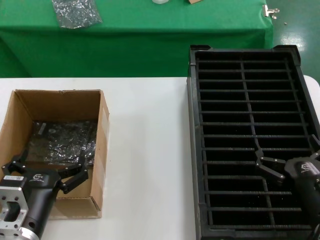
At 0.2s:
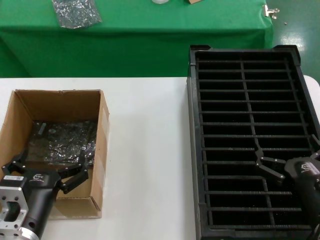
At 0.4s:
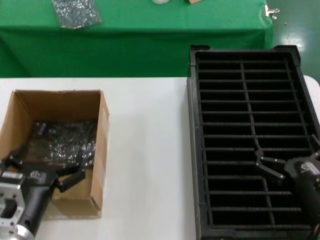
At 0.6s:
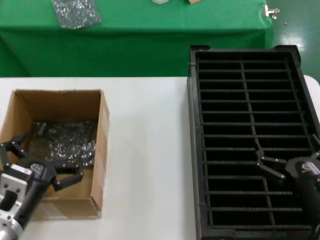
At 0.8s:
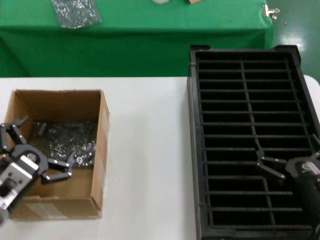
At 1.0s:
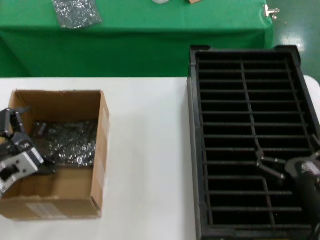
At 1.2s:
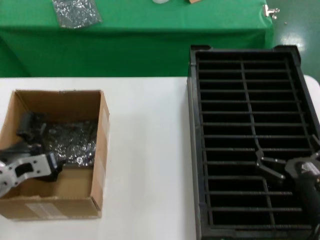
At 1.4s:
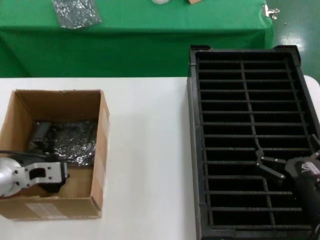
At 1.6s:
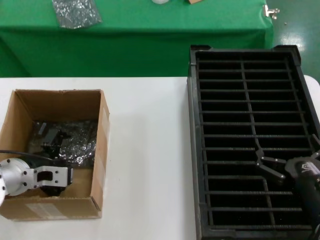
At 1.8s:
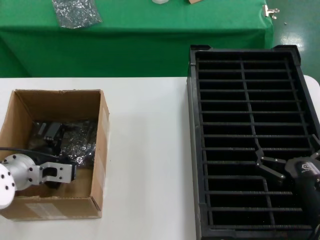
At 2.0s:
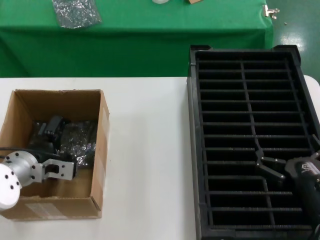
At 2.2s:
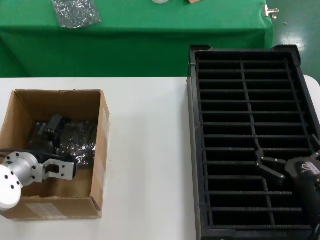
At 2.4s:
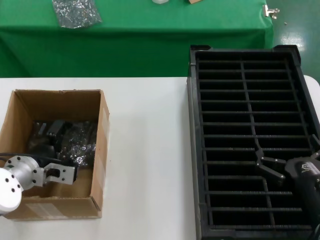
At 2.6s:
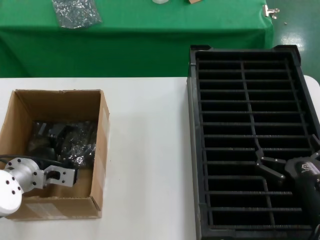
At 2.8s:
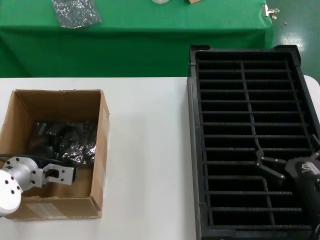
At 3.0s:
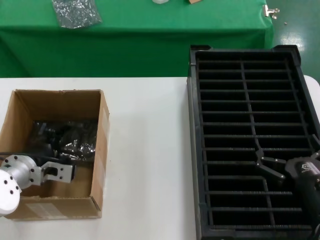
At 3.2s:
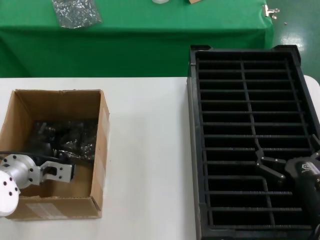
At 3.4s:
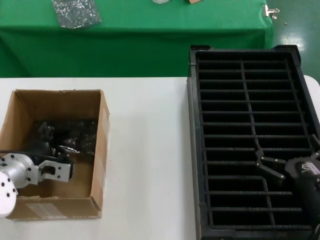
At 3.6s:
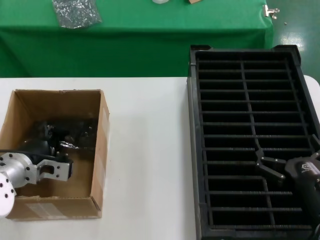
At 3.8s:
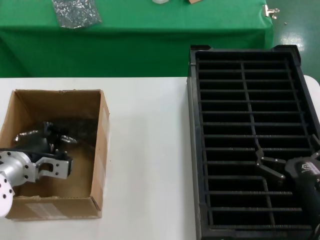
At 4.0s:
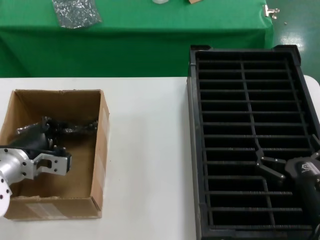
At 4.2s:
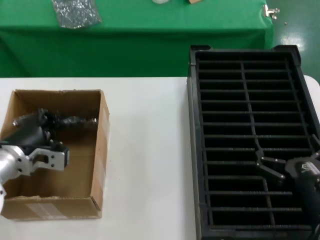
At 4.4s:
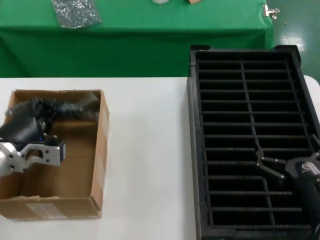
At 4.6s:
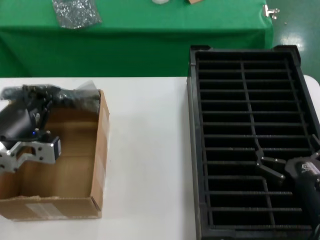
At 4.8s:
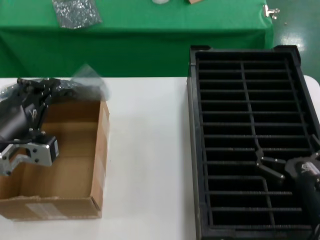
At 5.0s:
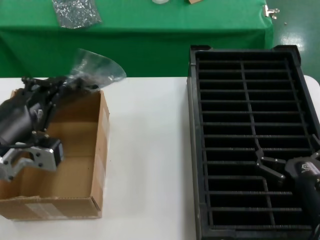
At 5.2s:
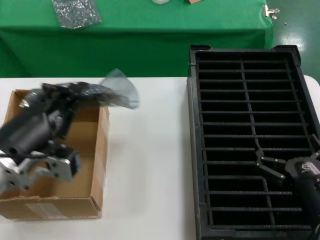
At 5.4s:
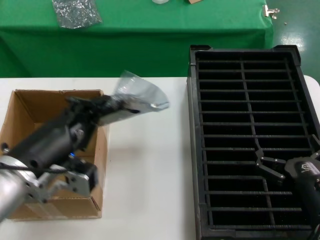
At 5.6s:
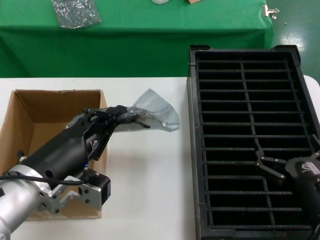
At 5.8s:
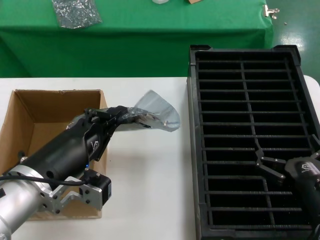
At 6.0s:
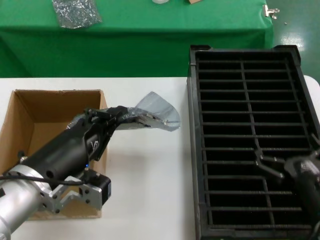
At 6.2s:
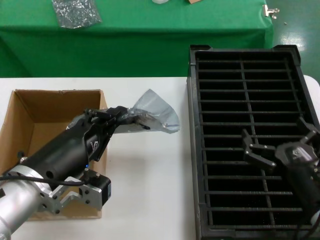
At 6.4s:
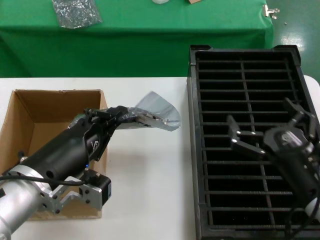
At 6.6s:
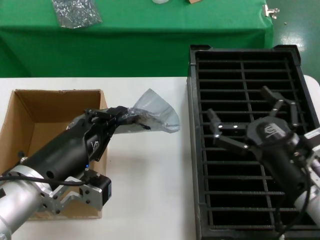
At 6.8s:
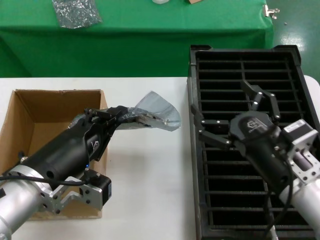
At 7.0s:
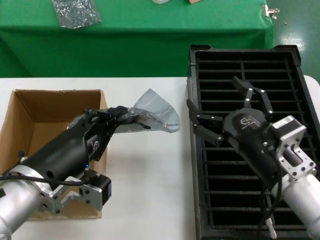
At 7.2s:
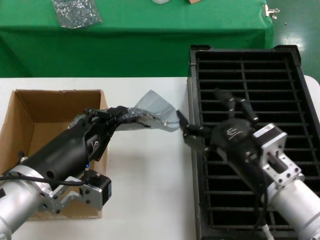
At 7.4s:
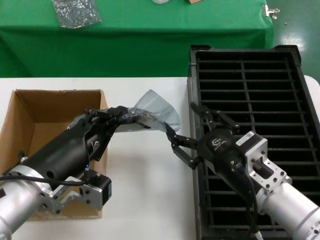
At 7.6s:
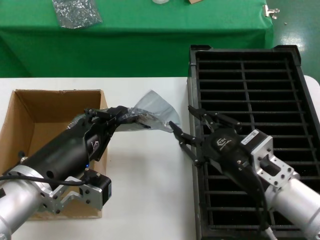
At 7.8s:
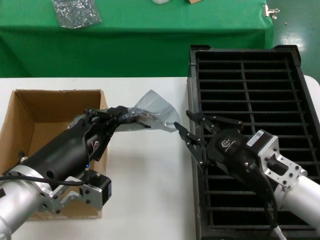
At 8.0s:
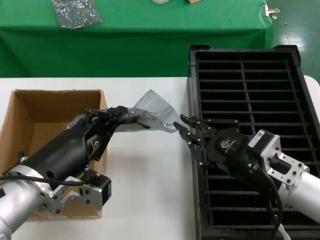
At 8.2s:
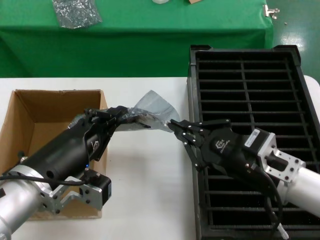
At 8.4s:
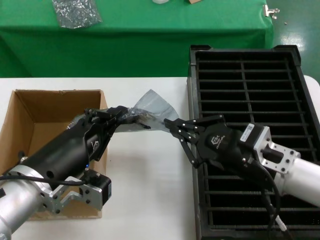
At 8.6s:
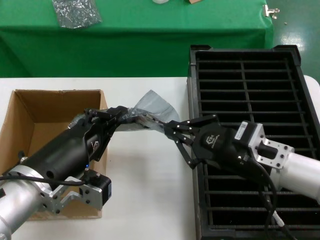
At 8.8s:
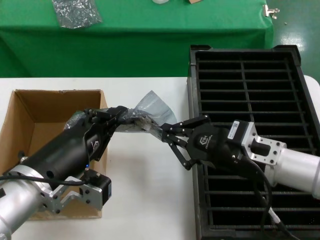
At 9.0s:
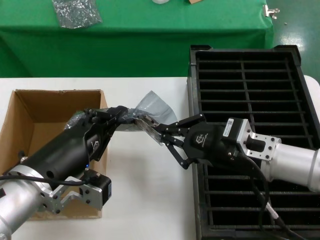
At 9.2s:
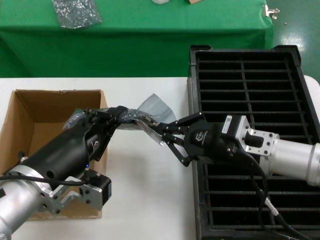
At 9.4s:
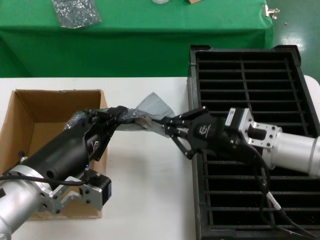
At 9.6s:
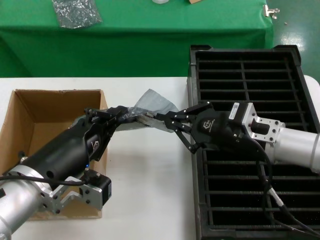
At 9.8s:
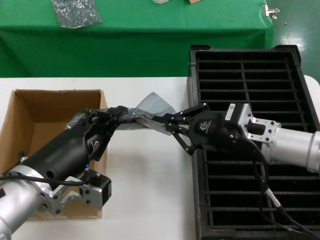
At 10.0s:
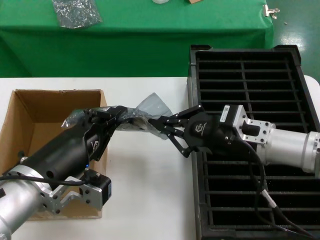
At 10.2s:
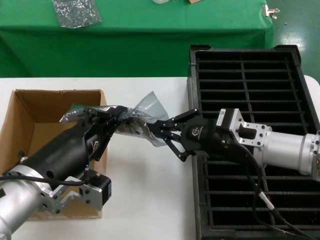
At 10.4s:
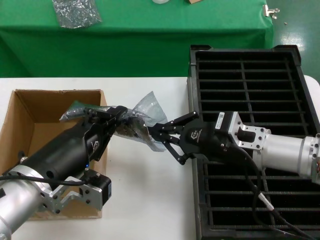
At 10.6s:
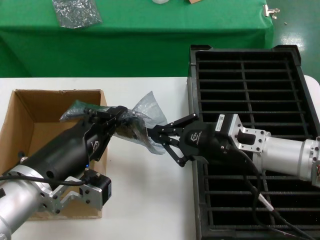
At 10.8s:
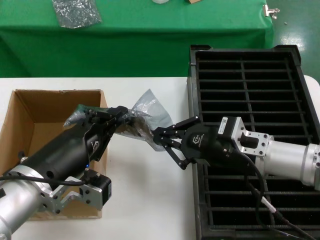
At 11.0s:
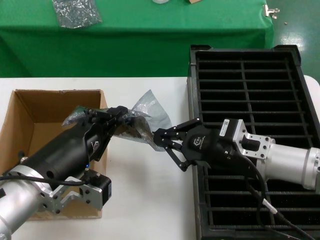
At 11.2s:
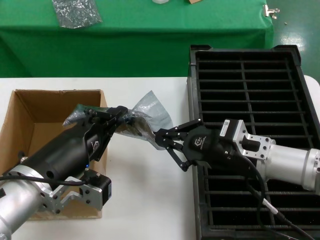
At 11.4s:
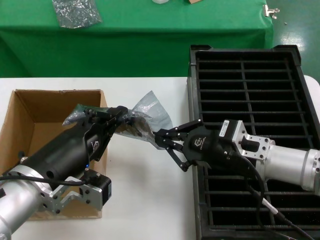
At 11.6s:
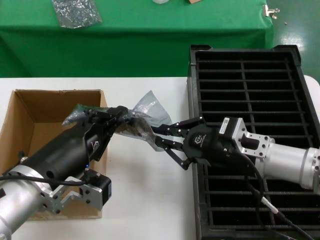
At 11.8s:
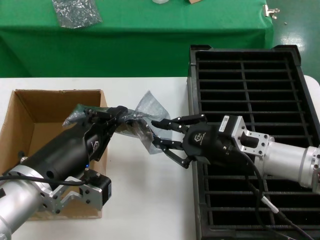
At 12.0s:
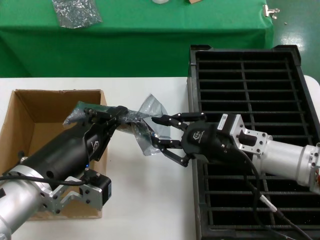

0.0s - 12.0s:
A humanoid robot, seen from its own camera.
Task of the whole recording: take out graphics card from box remove packaging put into black container.
Step, 0.0s - 3.8s: Grasp the bag.
Step, 4.0s - 5.6s: Lift the bag.
0.0s - 1.6s: The left hand moves forward and to the left, roughly 15 cm.
1.6s - 3.0s: The hands make only small movements.
3.0s - 4.4s: The left hand shifts approximately 10 cm upward and backward.
4.4s - 6.0s: The left hand goes approximately 15 cm backward and to the right.
6.0s - 7.6s: The right hand moves to the left and upward, roughly 10 cm.
7.6s - 9.0s: The right hand is displaced forward by roughly 5 cm.
9.0s - 12.0s: The hands make only small movements.

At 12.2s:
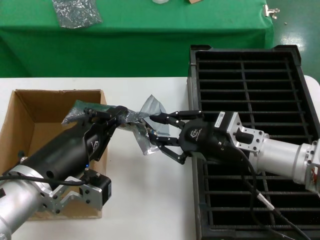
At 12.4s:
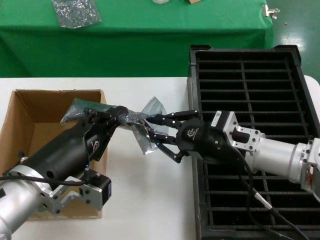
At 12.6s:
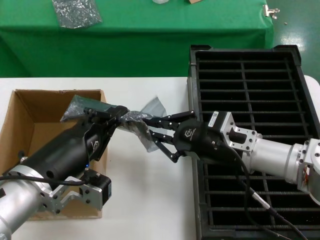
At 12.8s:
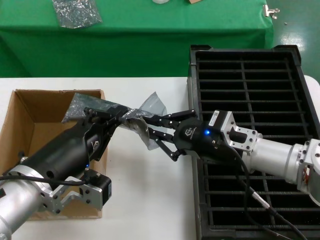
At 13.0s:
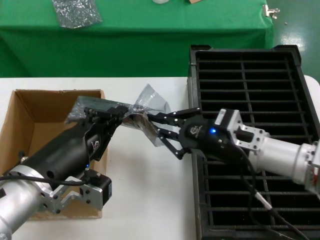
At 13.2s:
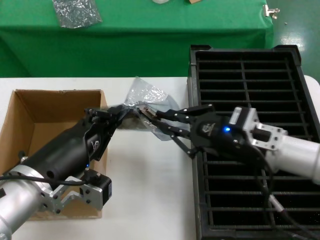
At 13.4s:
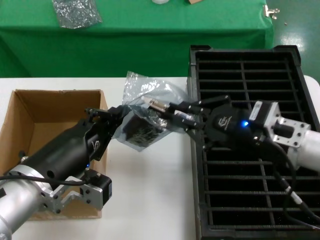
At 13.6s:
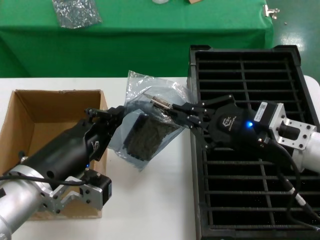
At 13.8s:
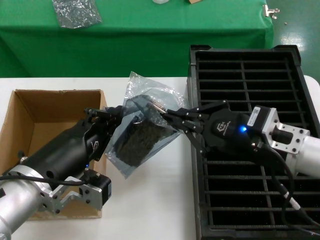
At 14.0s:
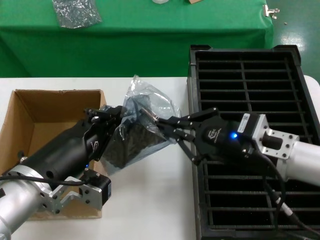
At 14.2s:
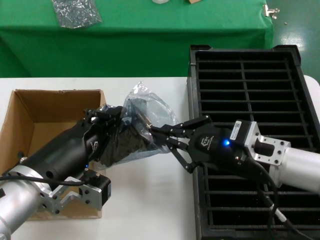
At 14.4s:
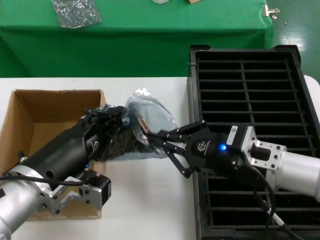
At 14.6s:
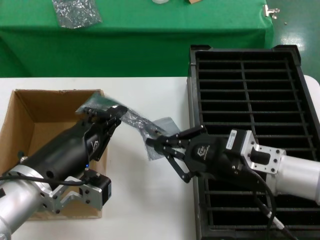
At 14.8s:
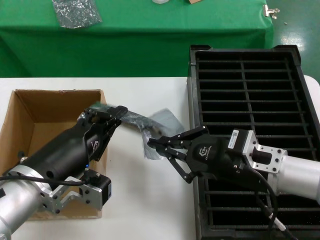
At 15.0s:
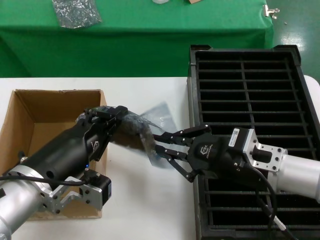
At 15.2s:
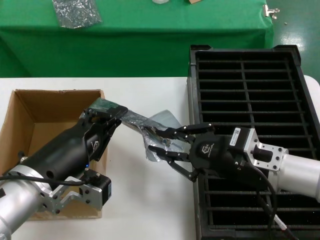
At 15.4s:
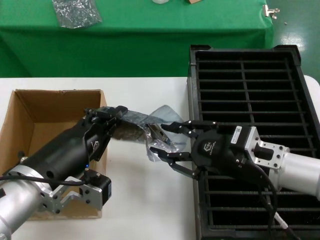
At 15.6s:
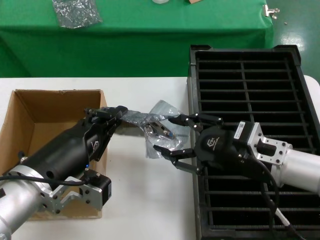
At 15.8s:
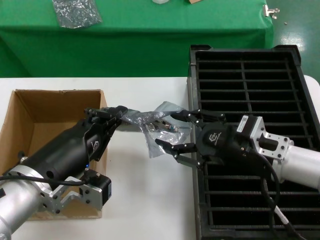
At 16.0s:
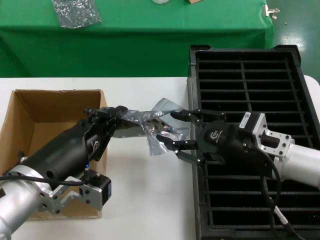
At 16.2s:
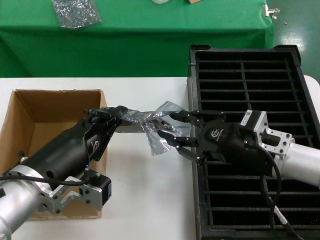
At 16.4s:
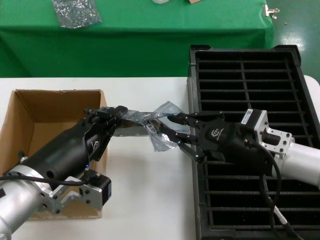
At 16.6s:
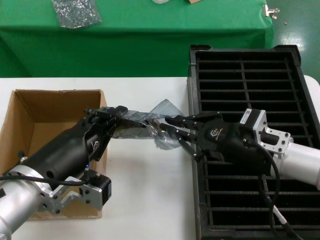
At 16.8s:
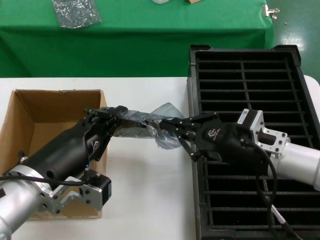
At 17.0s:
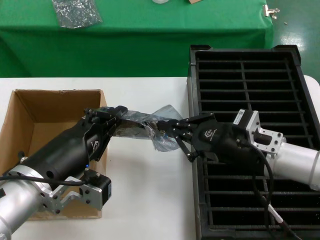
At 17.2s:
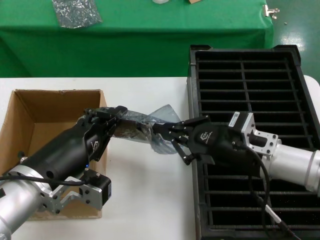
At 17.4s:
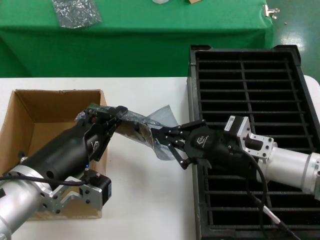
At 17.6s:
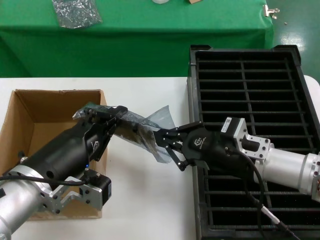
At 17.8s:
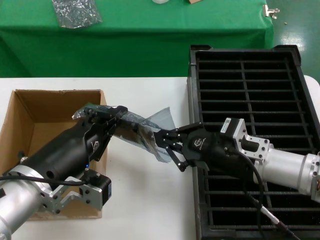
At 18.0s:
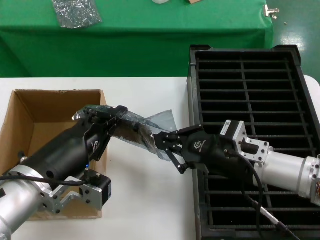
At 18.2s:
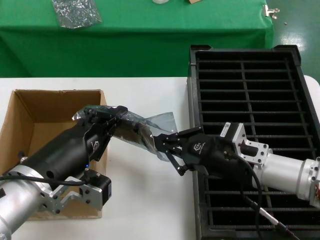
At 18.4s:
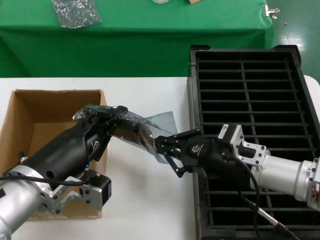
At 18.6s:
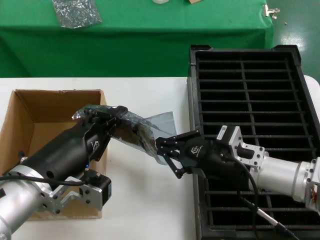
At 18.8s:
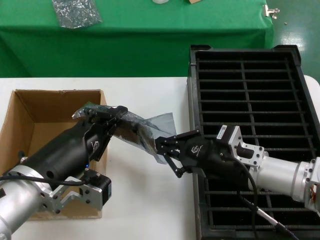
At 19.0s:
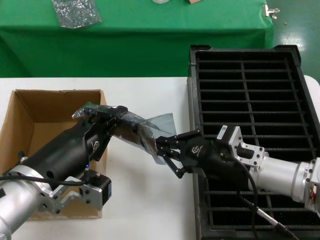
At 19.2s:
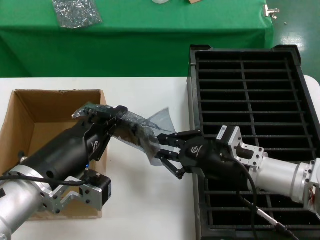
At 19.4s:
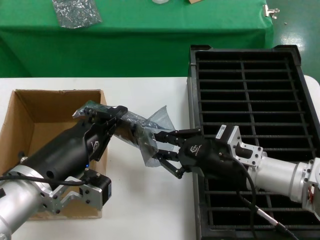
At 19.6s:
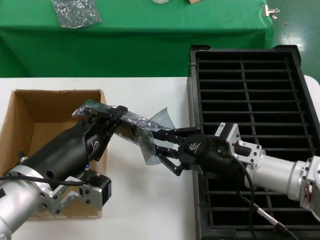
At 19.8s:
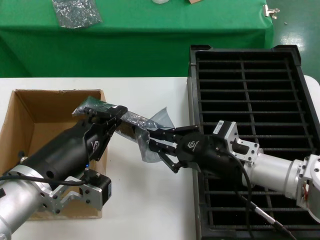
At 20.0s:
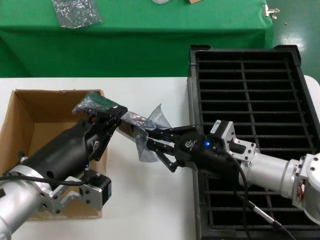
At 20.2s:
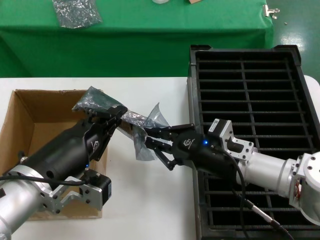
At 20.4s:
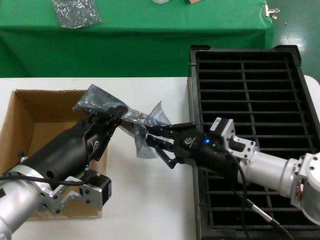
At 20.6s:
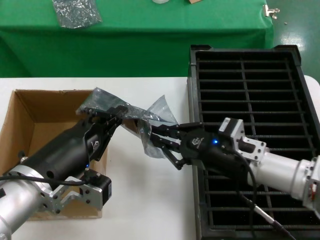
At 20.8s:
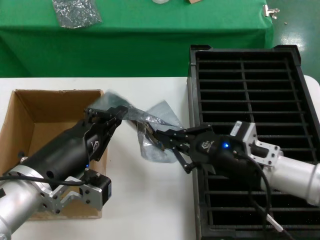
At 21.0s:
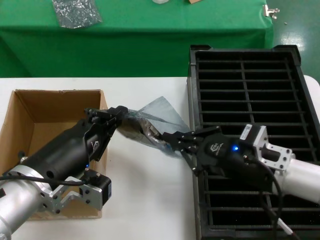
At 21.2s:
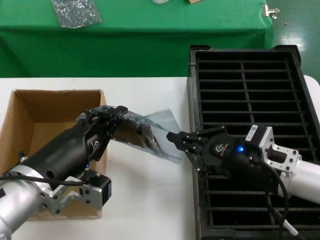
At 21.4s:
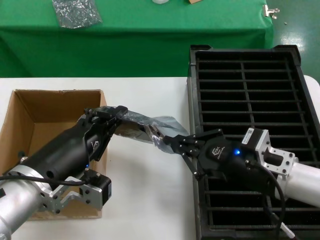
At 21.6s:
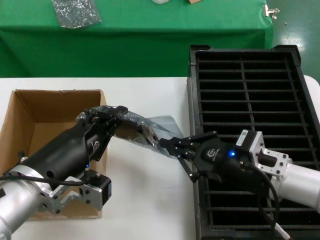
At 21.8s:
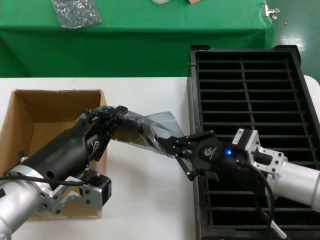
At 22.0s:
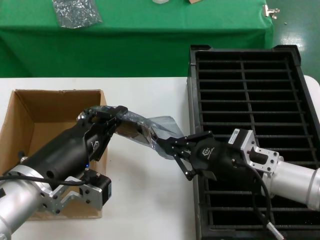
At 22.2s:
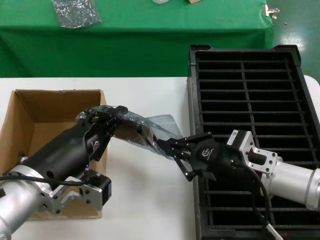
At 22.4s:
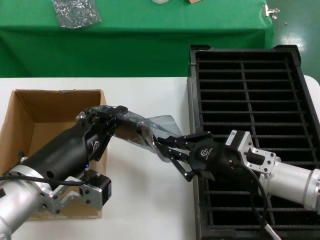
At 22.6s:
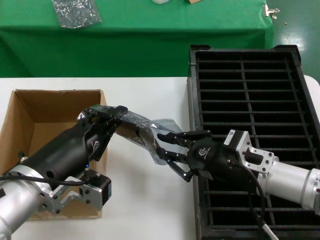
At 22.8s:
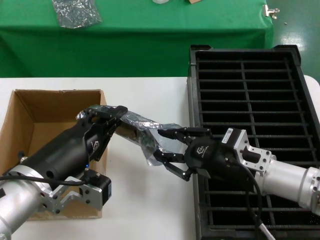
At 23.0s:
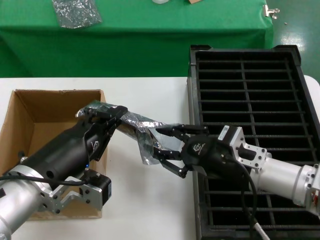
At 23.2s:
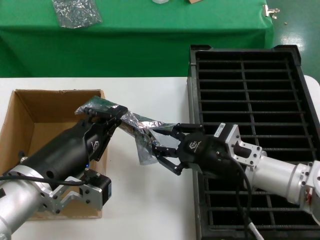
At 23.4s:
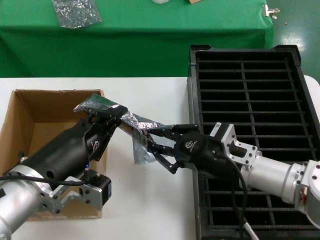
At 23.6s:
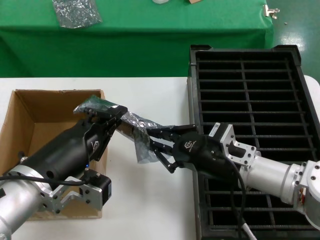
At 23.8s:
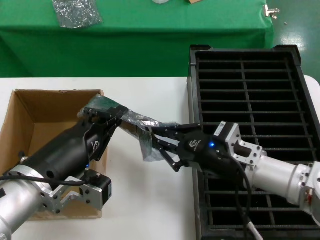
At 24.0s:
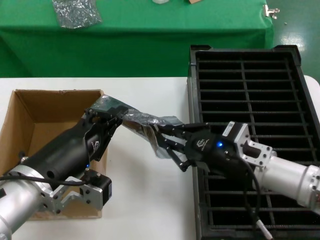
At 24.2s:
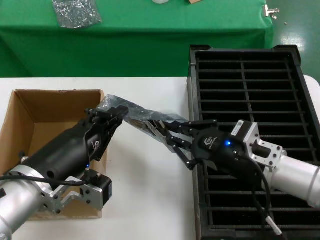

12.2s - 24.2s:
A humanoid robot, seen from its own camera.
Task of the whole recording: take out graphics card from box remove packaging put into black container.
12.2s - 13.8s: The right hand shifts approximately 5 cm backward.
13.8s - 16.6s: The hands move only a little.
16.6s - 19.8s: The hands make only small movements.
19.8s - 21.2s: The right hand moves backward, about 5 cm.
21.2s - 22.6s: The hands stay close to where they were, moving slightly.
22.6s - 24.2s: There are only small adjustments of the hands.
